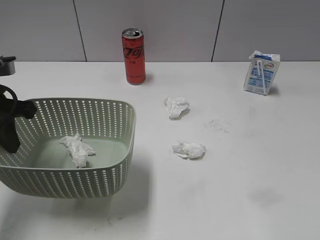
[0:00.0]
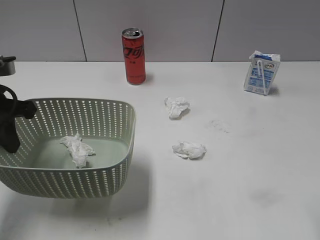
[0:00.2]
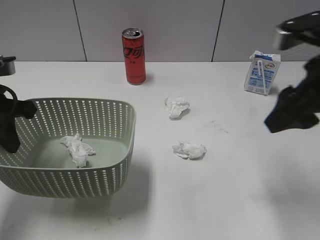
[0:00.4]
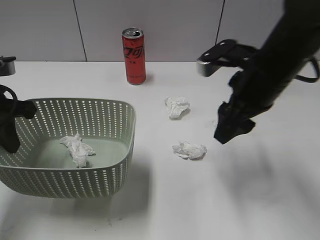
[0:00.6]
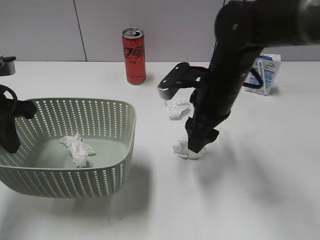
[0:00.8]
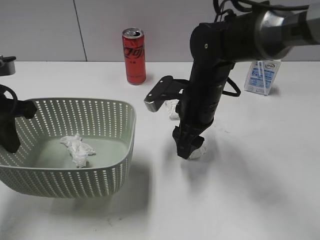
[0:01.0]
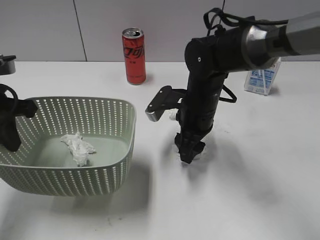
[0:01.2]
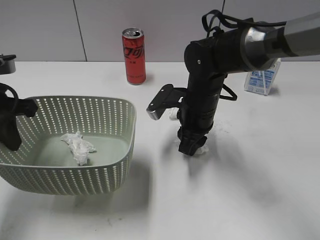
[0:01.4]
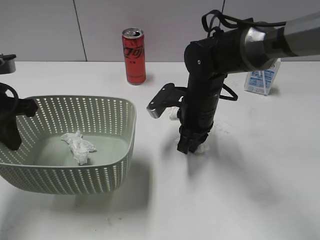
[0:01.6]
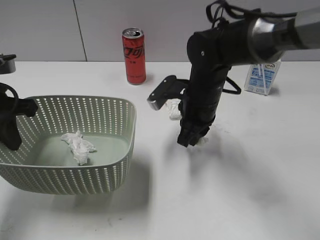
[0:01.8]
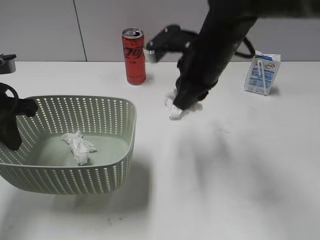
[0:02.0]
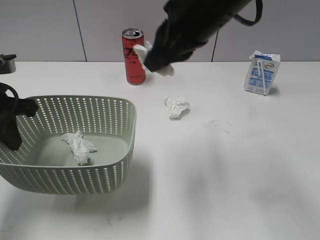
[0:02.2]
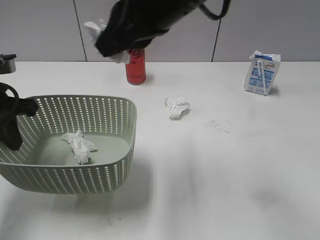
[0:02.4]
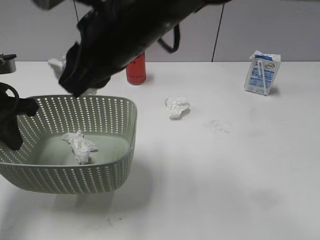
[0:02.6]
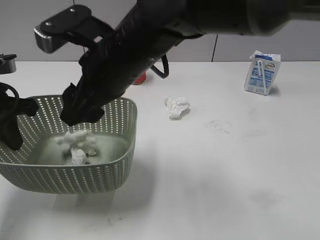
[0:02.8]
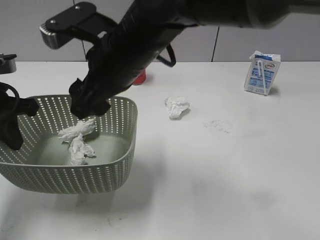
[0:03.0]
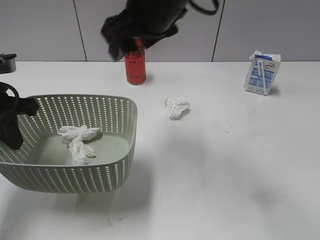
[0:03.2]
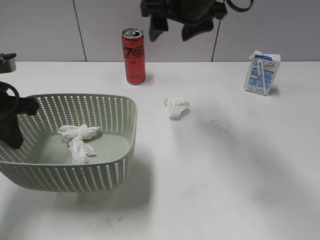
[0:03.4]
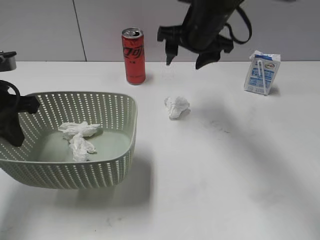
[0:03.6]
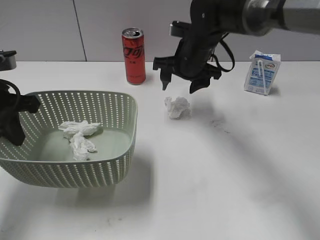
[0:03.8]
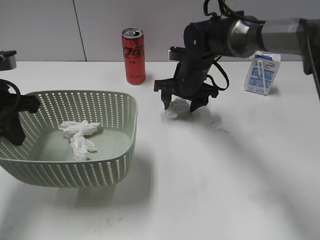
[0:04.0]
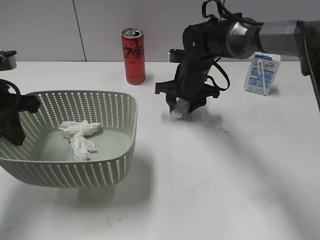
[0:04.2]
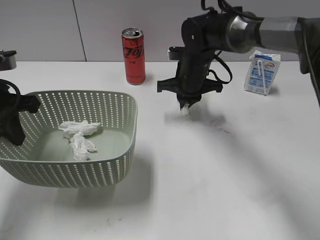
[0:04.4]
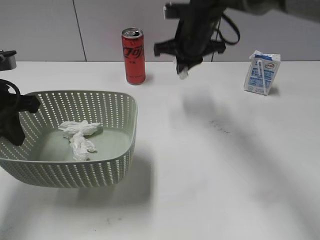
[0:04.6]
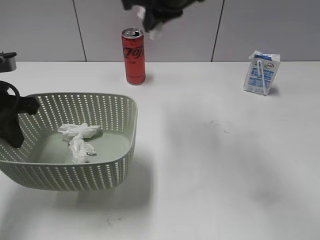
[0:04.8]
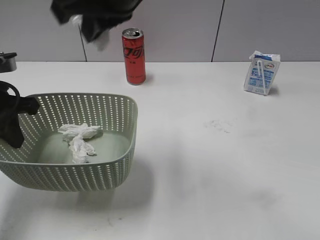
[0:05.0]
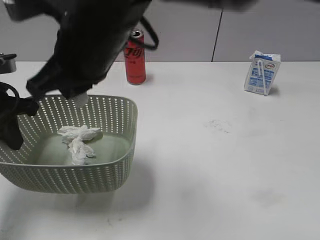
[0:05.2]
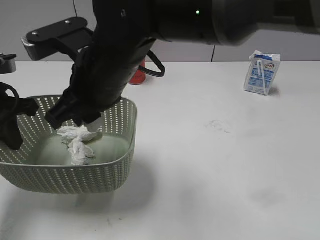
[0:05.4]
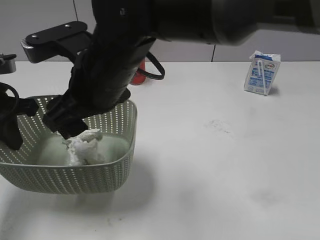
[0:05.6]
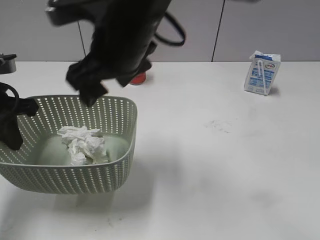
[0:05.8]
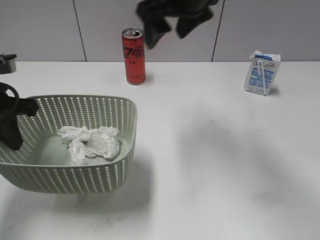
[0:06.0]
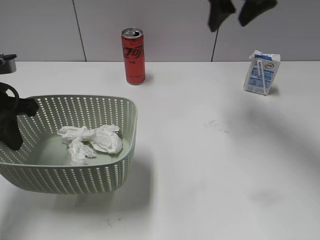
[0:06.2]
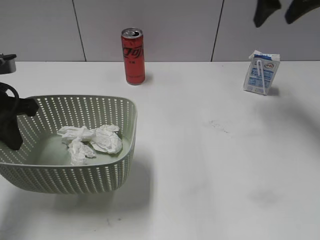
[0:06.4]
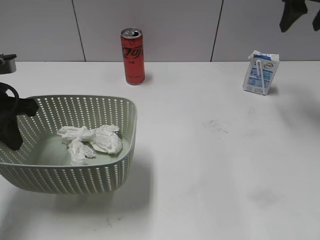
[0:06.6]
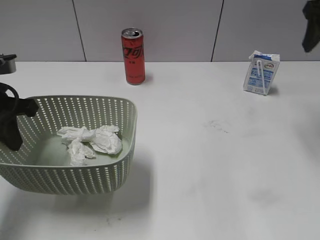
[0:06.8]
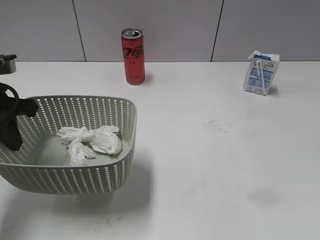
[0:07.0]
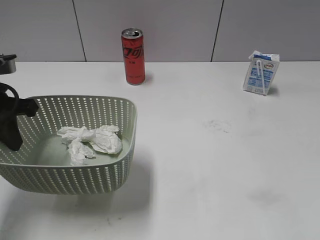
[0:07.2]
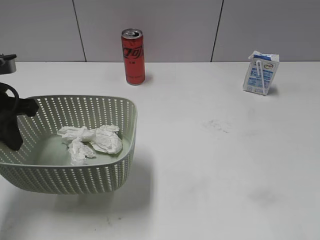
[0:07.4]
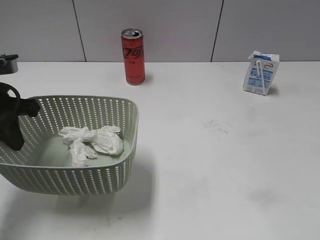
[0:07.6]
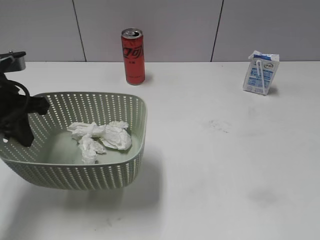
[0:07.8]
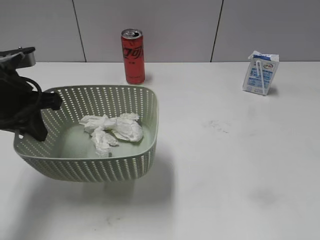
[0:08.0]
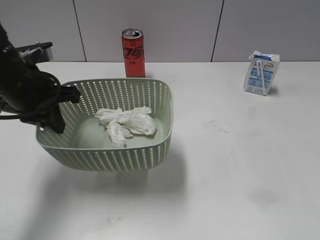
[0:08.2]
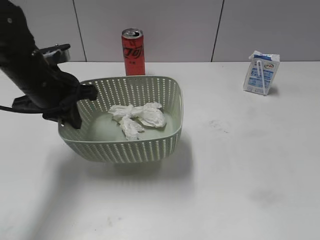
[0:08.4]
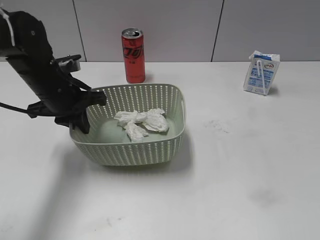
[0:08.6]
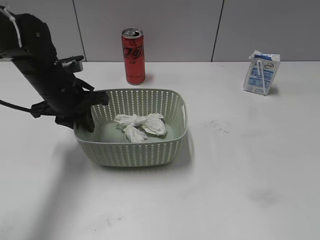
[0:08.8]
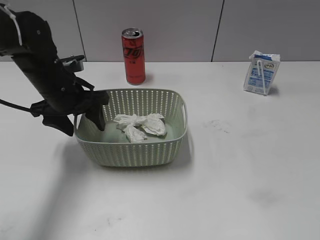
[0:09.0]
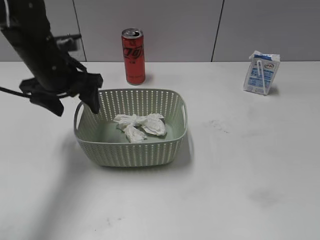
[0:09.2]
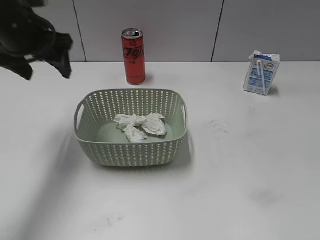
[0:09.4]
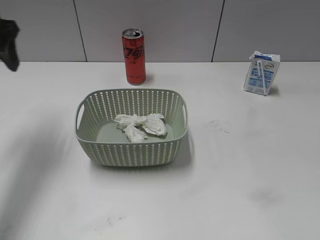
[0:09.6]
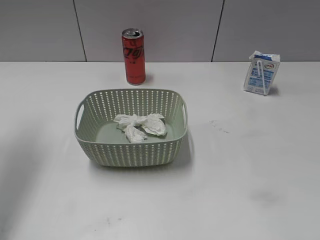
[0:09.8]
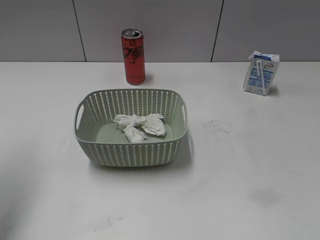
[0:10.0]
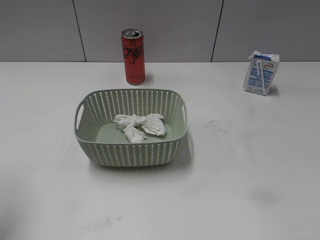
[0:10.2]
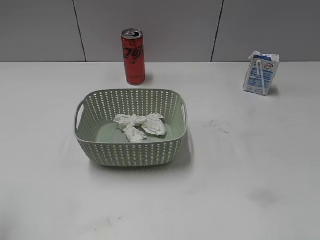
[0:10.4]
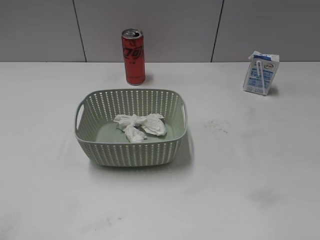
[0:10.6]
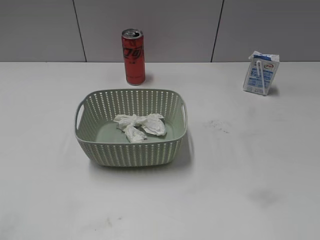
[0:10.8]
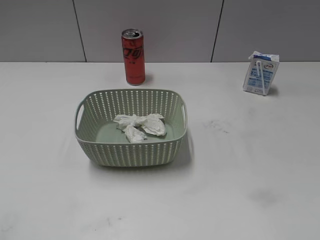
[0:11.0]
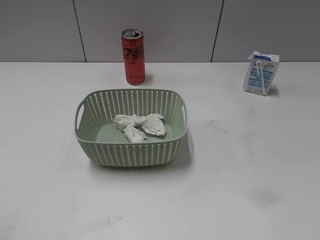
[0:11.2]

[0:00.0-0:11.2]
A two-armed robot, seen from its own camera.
Step, 0:01.8 to 0:03.0: Place the waste paper in the basket with right gripper.
Step, 0:03.2 to 0:04.4: Grasp the waste paper with right gripper.
Step, 0:04.6 to 0:05.8: Place the waste paper in the basket with right gripper.
Step, 0:06.0 to 0:09.2: Place the basket on the table with left gripper.
0:00.0 to 0:01.6: The right gripper heads forward, to the left and downward, covering some 40 cm, and closes its fingers.
0:01.6 to 0:03.2: The right gripper moves up and down over approximately 20 cm, changing direction 2 times, and opens its fingers.
0:03.2 to 0:04.8: The right gripper goes about 5 cm forward, moves about 20 cm downward and comes back, and closes its fingers.
0:04.8 to 0:06.4: The right gripper travels to the right by about 20 cm, and opens.
0:06.4 to 0:08.0: The right gripper heads backward, covering roughly 40 cm.
0:08.0 to 0:09.6: The left gripper travels upward and forward by roughly 10 cm, and opens its fingers.
0:09.6 to 0:11.2: The left gripper goes roughly 35 cm backward.

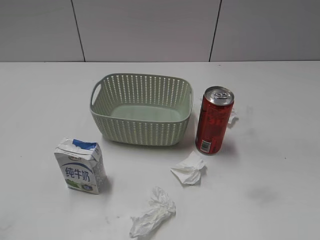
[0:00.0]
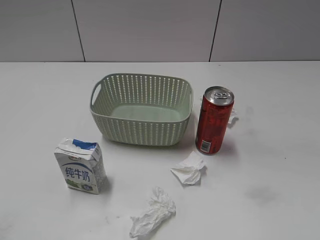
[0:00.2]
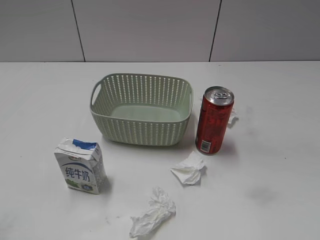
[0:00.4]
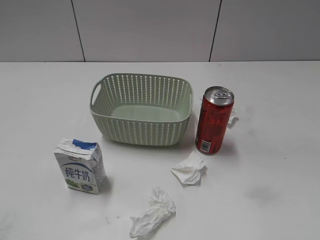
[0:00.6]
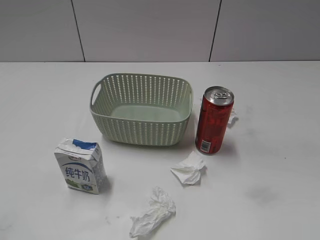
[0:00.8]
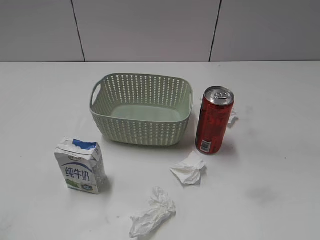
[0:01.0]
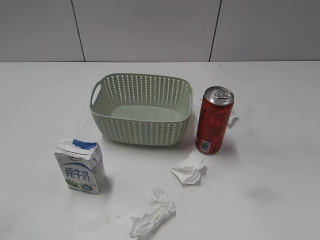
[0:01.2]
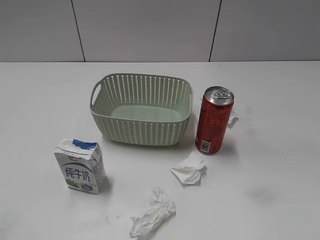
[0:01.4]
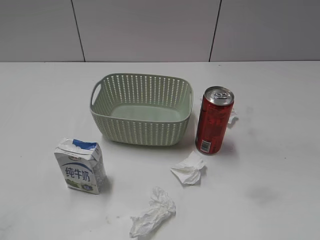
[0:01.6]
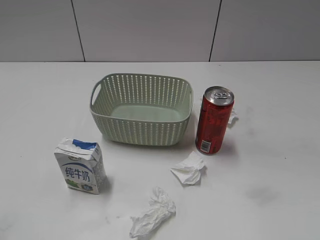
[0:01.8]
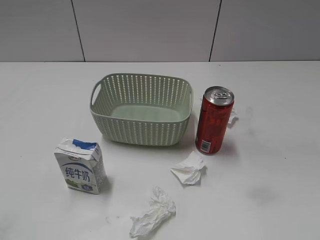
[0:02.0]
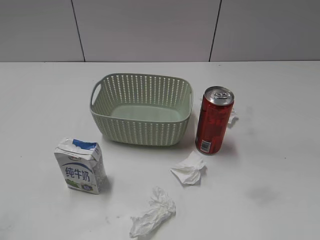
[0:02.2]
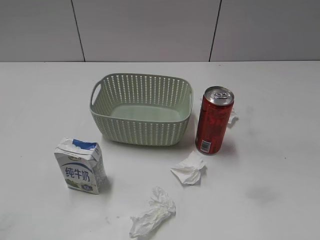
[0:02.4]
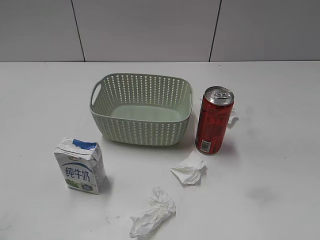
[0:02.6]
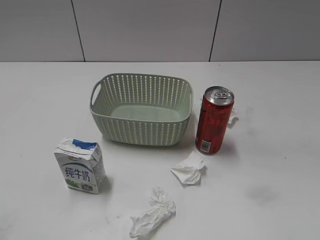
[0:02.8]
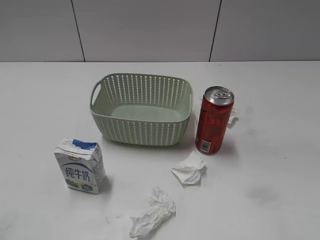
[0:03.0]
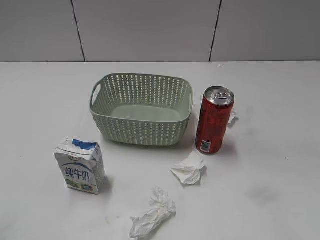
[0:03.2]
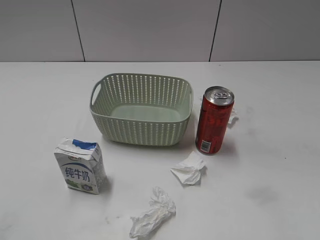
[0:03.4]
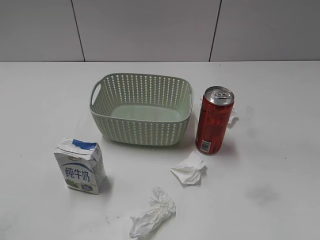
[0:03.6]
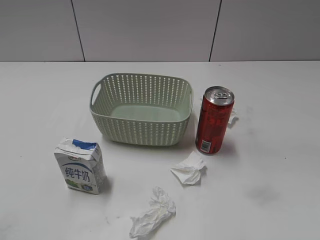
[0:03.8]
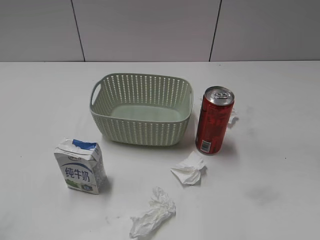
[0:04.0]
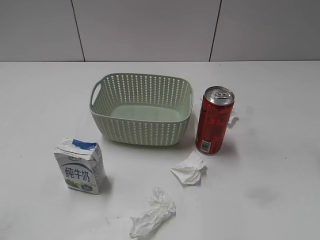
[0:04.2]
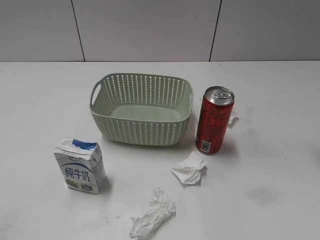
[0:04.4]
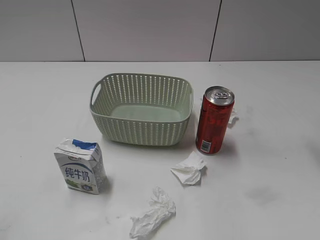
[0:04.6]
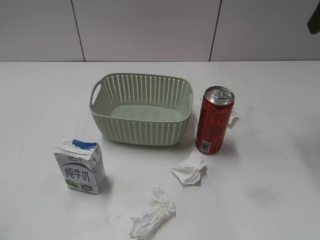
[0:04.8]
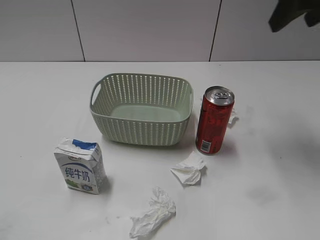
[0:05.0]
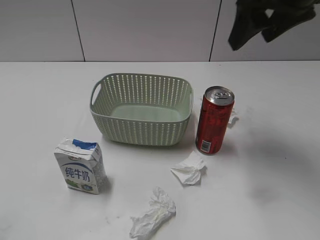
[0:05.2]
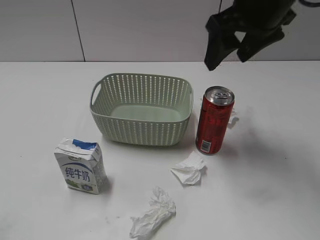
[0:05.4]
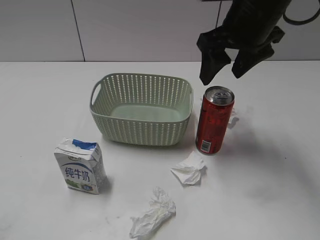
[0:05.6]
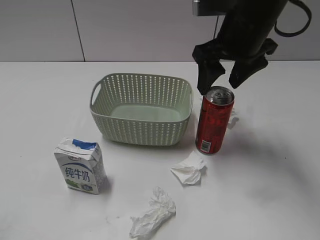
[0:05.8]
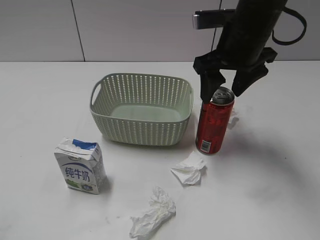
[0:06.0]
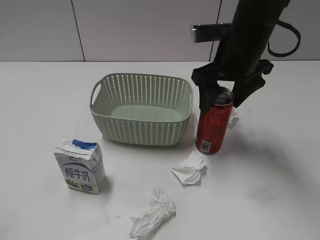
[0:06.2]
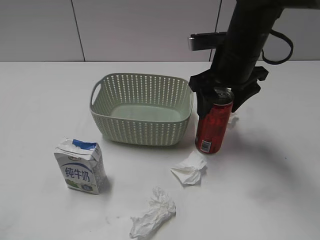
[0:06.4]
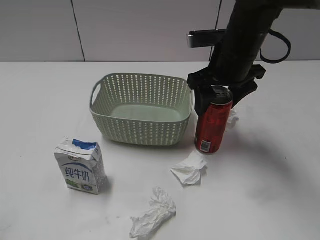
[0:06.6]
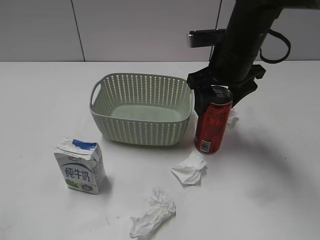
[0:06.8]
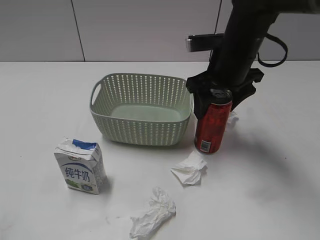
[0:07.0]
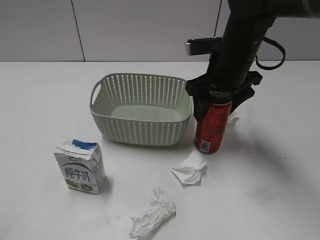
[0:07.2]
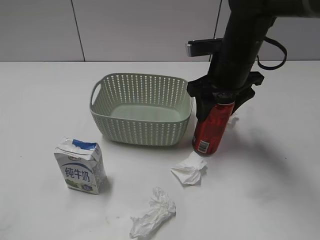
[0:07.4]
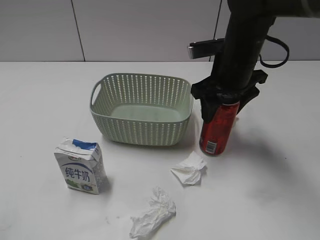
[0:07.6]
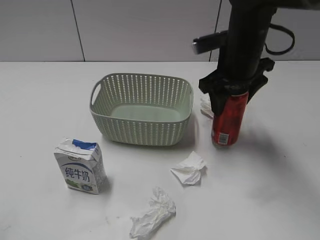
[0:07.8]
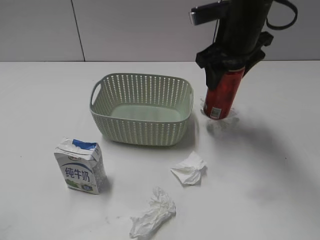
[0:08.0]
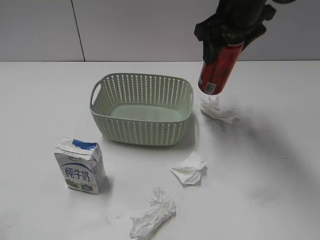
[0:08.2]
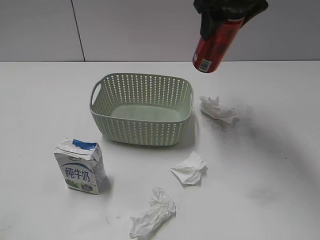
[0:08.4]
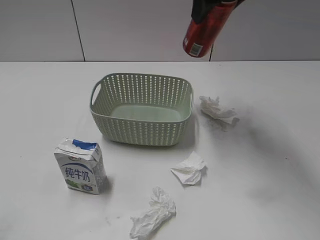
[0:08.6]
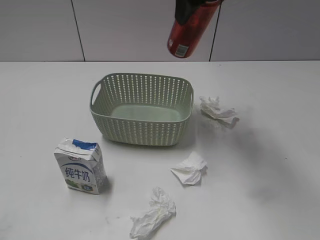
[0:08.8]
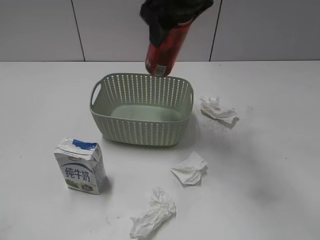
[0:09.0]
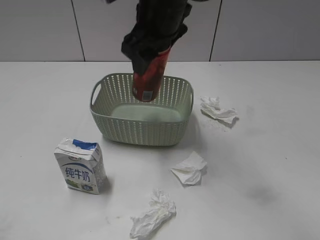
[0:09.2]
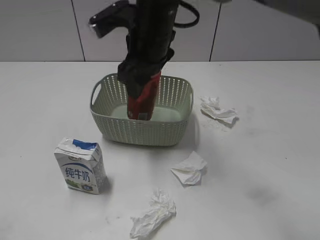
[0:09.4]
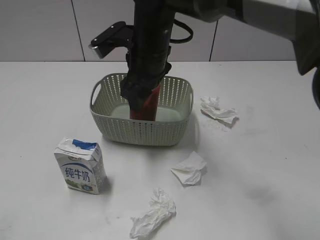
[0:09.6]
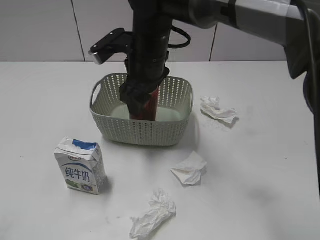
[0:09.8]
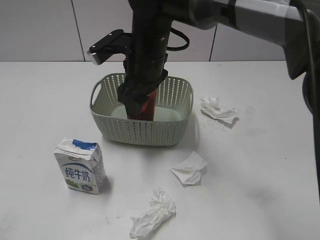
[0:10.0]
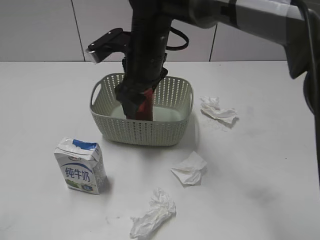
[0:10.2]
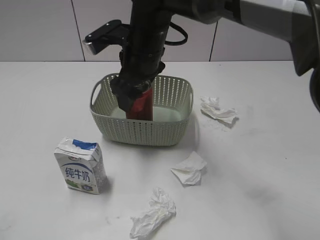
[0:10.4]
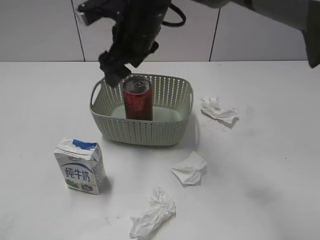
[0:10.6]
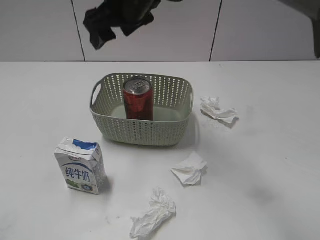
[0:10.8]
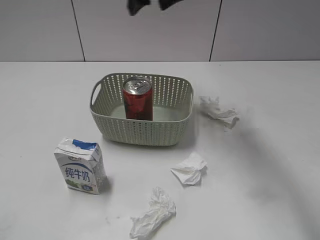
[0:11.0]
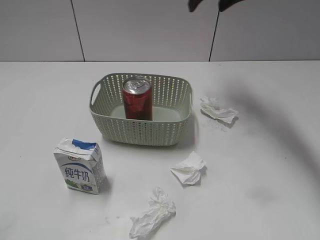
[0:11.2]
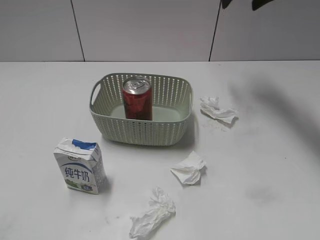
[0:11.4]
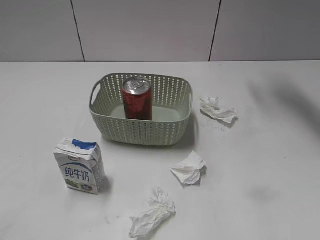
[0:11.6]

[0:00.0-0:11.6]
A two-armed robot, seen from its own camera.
Step, 0:04.8 to 0:07.4: Grasp the cola can with right gripper.
Step, 0:07.6 to 0:10.6: Place the cola can in the basket with right gripper.
0:04.4 to 0:05.8: The right gripper goes some 20 cm to the left and downward.
0:05.8 to 0:07.2: The right gripper goes approximately 5 cm downward.
0:07.2 to 0:08.8: The right gripper is displaced upward by about 15 cm, and closes its fingers.
0:08.8 to 0:10.2: The right gripper moves downward and to the left, approximately 20 cm, and opens.
0:10.2 to 0:11.6: The right gripper heads to the right, upward and forward, covering some 30 cm.
